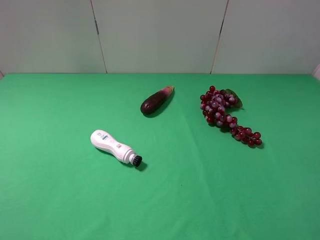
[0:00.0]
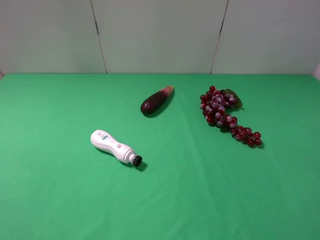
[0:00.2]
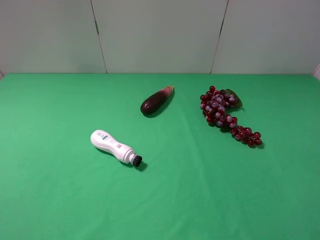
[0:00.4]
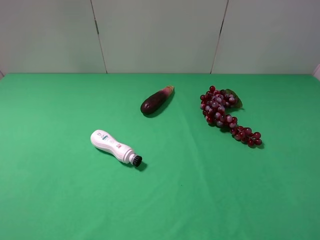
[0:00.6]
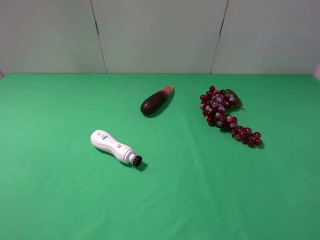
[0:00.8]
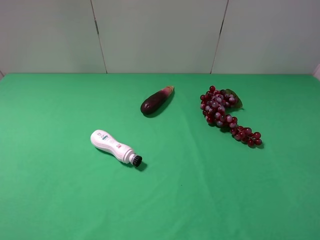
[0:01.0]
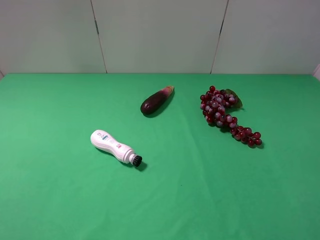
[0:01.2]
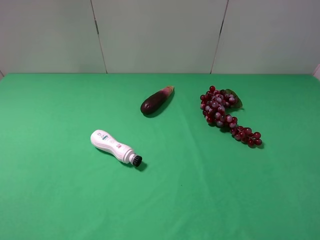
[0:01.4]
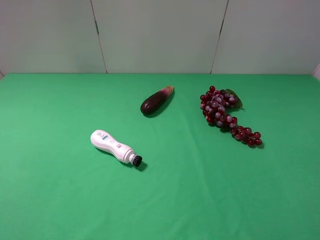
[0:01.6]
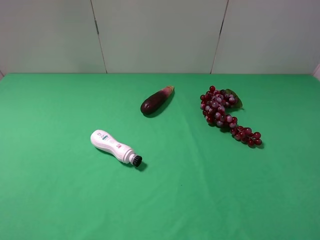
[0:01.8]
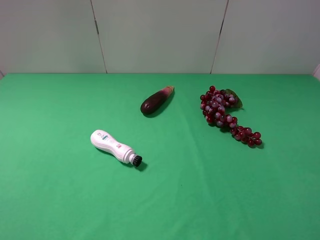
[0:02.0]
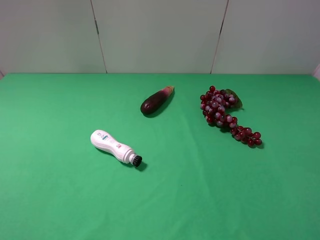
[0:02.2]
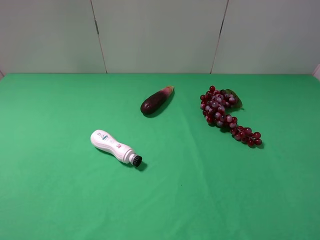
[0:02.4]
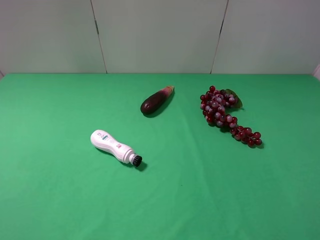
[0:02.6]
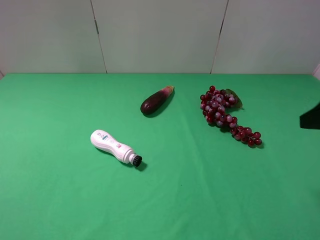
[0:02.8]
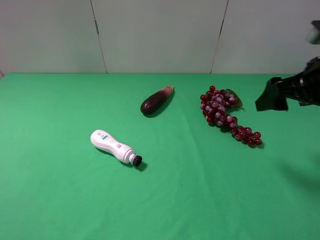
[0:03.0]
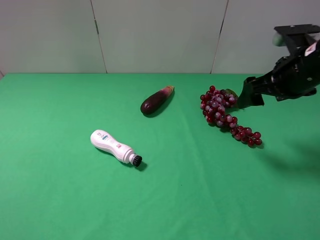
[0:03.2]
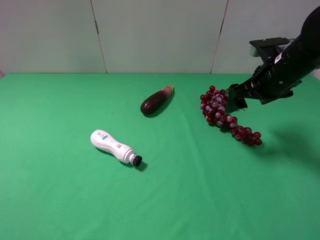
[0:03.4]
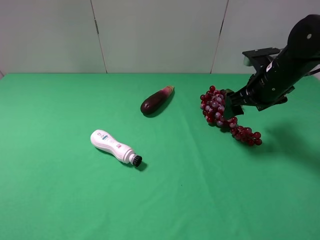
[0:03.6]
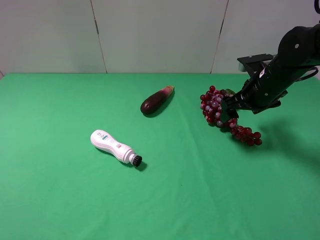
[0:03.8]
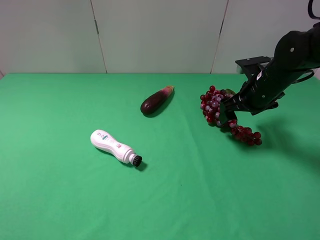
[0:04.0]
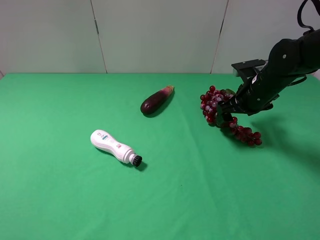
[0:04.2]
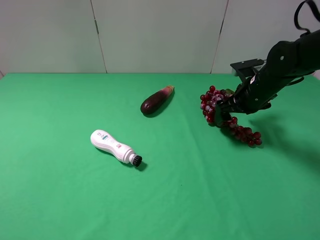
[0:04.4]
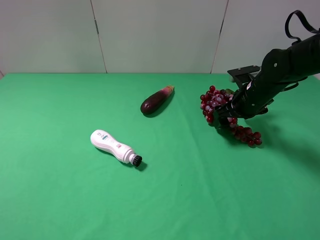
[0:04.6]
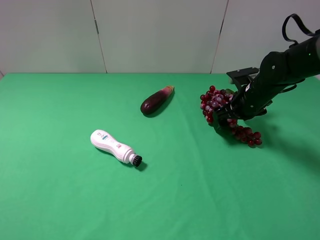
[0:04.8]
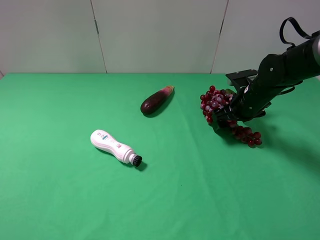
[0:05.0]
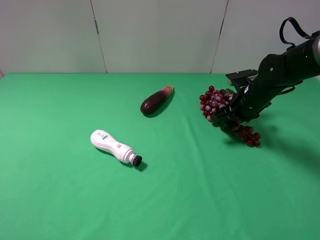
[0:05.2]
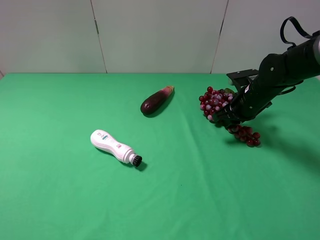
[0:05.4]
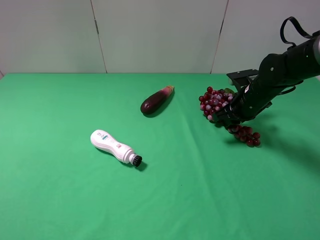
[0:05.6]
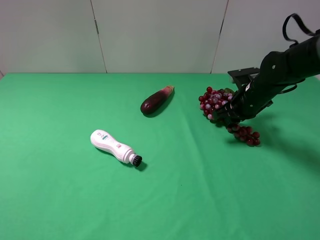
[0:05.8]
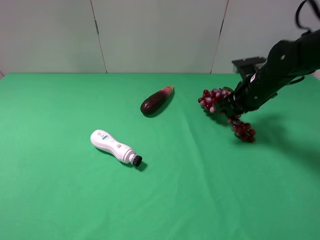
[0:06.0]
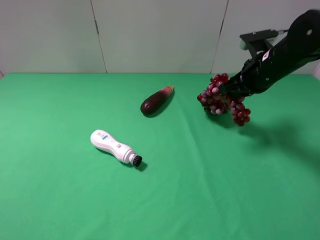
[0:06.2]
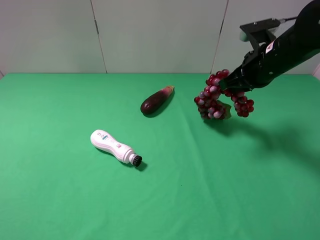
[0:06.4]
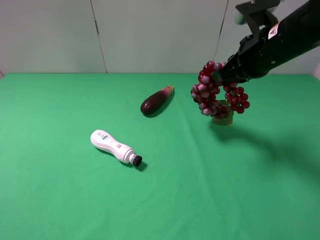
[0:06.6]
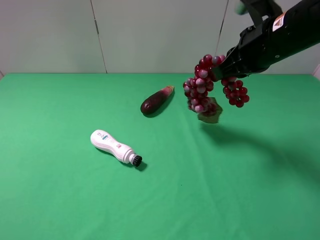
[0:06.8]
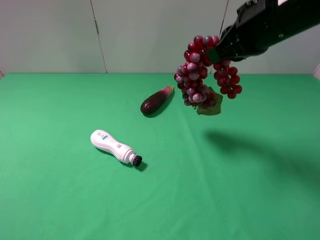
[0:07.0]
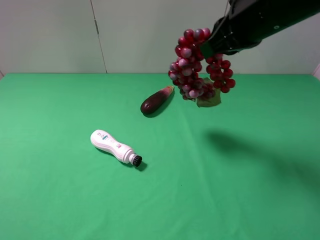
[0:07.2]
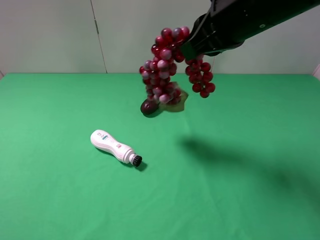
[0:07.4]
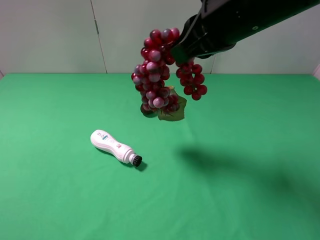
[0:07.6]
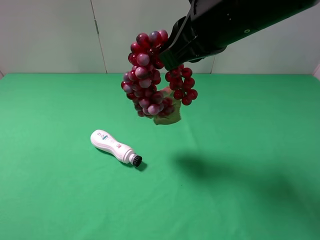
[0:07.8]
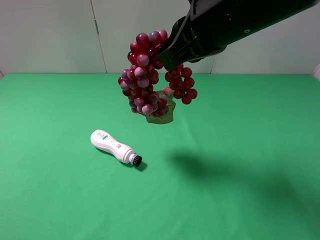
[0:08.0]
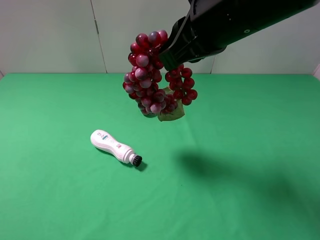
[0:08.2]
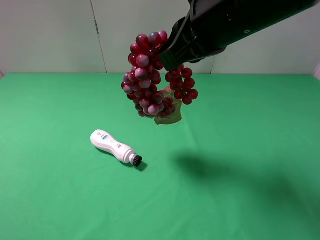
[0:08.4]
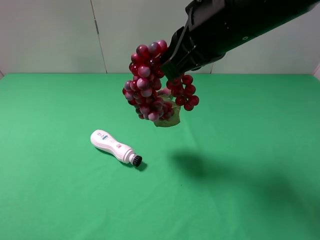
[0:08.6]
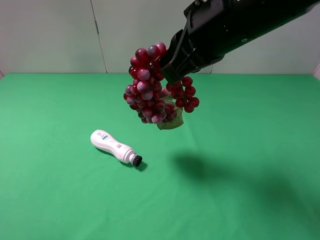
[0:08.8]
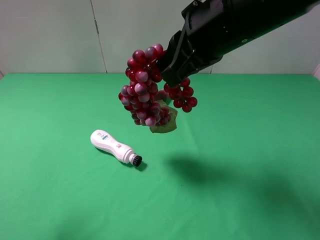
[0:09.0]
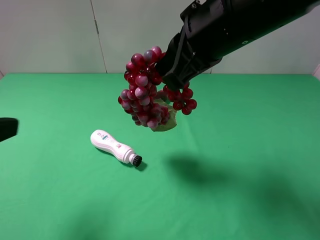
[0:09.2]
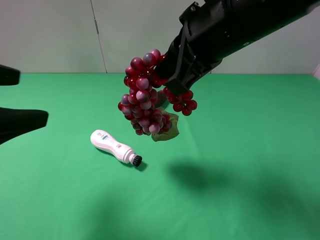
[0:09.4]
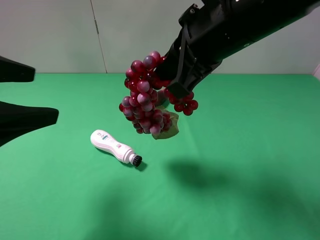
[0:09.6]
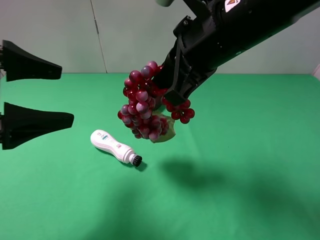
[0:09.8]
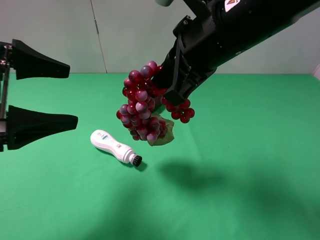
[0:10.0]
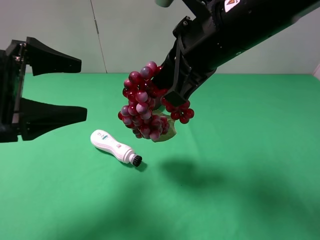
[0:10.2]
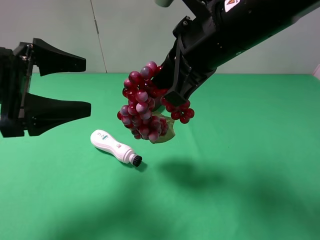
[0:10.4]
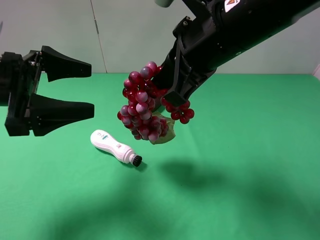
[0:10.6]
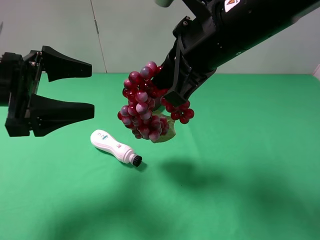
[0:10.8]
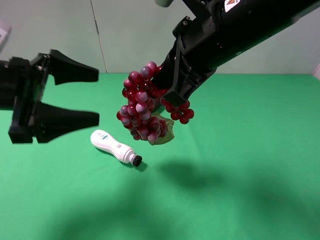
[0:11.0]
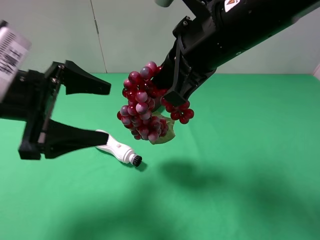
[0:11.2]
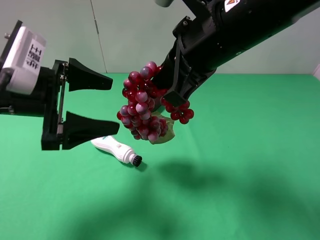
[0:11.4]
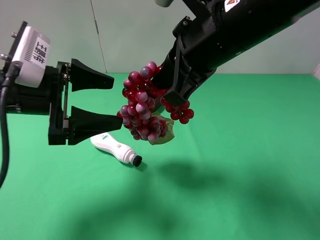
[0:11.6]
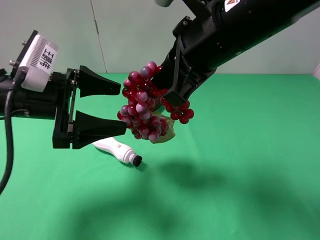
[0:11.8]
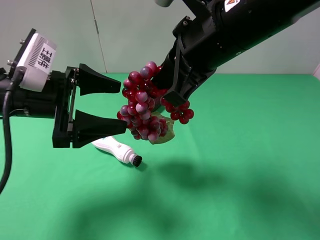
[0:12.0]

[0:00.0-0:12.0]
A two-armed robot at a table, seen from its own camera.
Task of the whole recording: use the right gripper to pick up the item and transfer it from the right gripper to the left gripper.
Step, 0:00.0 to 0:05.4: Use the right gripper to grab the grape on the right side of the table.
0:00.0 to 0:01.6: Both grippers stay about where they are.
0:01.6 to 0:03.0: The right gripper travels forward by some 25 cm.
0:03.0 to 0:04.4: The right gripper travels downward and forward by approximately 15 cm.
0:04.4 to 0:06.0: The right gripper closes its fingers.
0:06.0 to 0:07.6: The right gripper heads upward, to the left and backward, covering some 25 cm.
0:07.6 to 0:09.0: The left gripper is displaced forward by approximately 5 cm.
0:09.0 to 0:10.4: The left gripper heads forward and downward, covering some 15 cm.
0:10.4 to 0:12.0: The left gripper moves about 5 cm.

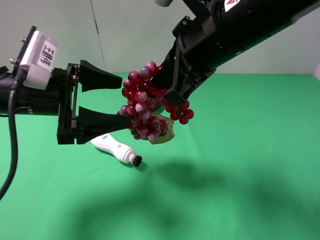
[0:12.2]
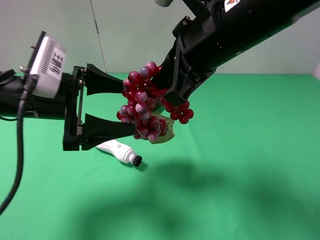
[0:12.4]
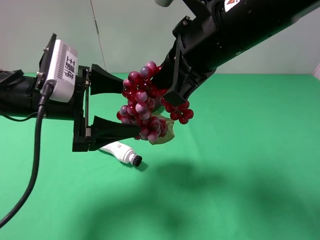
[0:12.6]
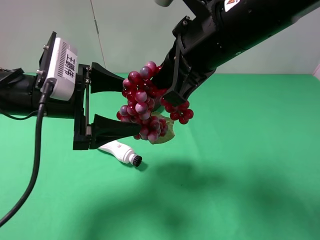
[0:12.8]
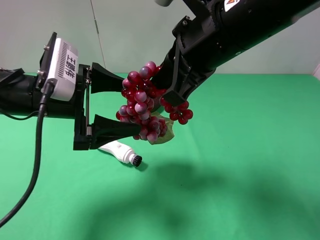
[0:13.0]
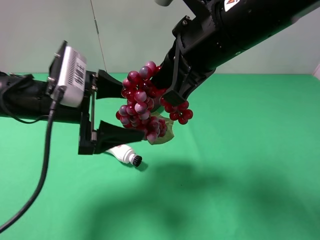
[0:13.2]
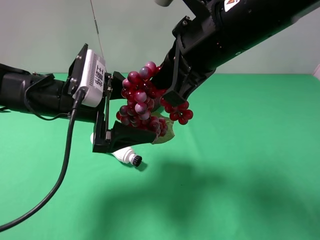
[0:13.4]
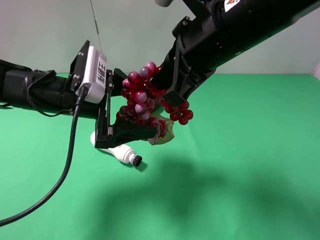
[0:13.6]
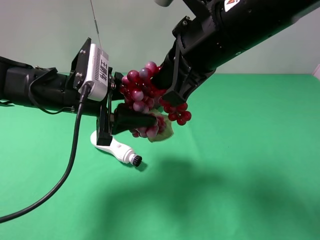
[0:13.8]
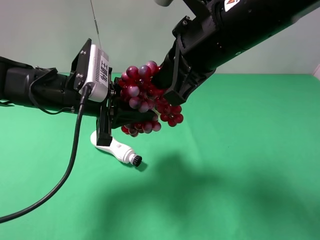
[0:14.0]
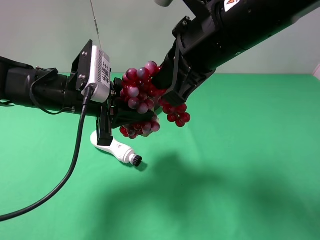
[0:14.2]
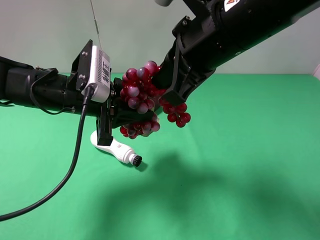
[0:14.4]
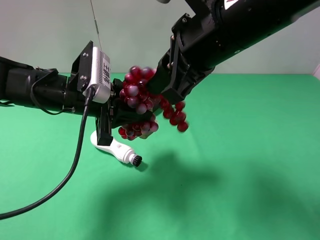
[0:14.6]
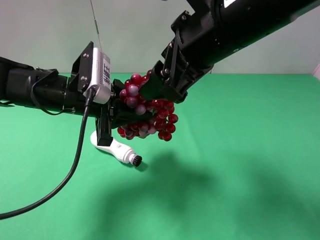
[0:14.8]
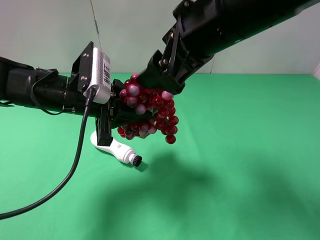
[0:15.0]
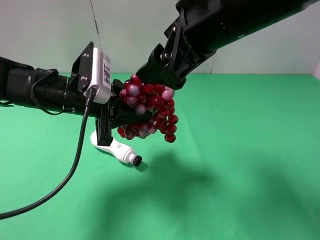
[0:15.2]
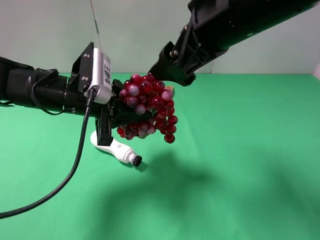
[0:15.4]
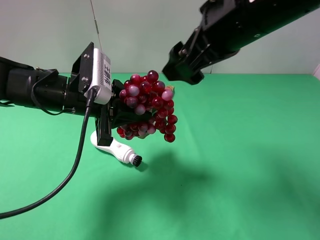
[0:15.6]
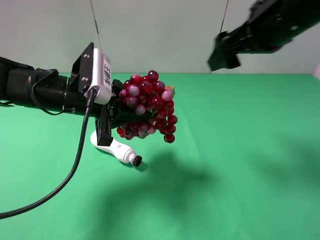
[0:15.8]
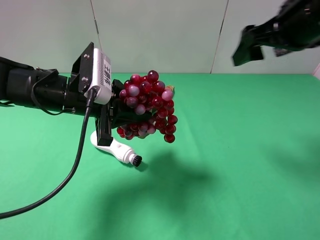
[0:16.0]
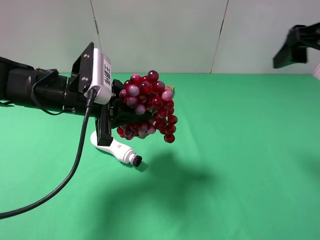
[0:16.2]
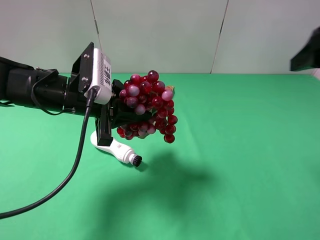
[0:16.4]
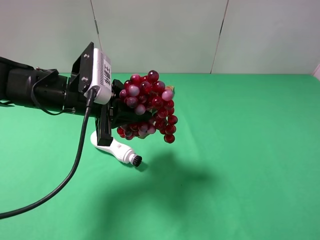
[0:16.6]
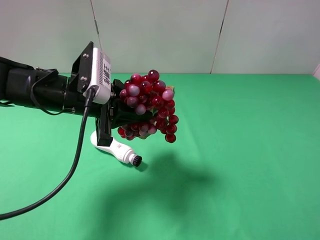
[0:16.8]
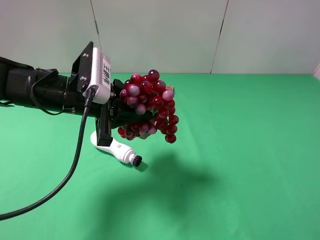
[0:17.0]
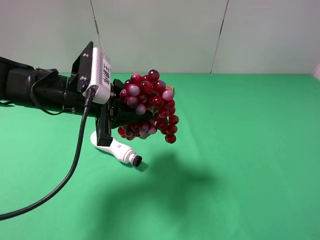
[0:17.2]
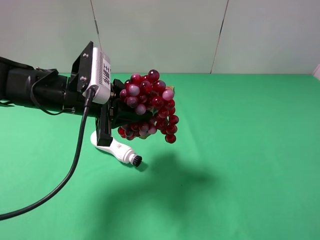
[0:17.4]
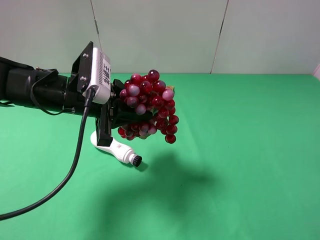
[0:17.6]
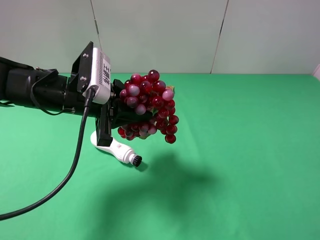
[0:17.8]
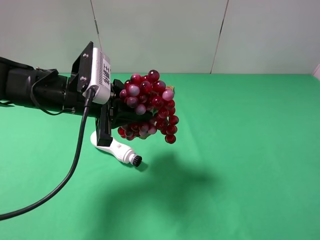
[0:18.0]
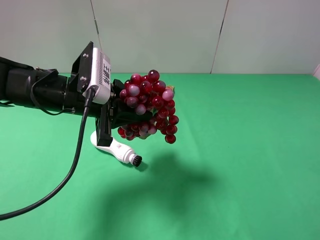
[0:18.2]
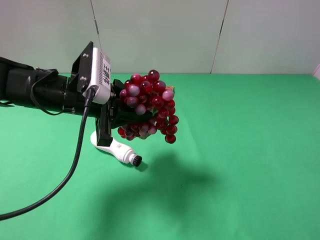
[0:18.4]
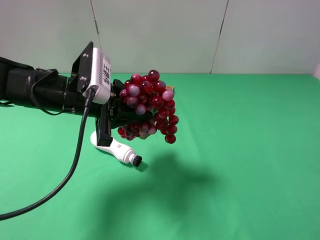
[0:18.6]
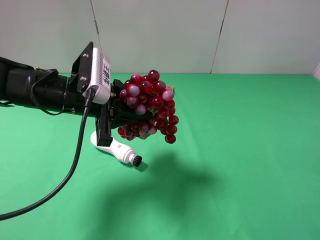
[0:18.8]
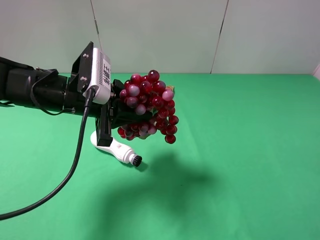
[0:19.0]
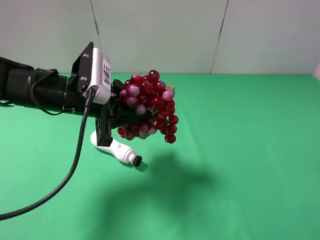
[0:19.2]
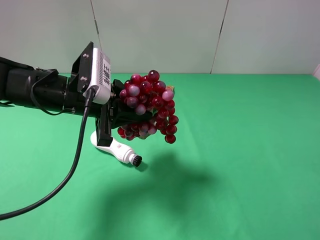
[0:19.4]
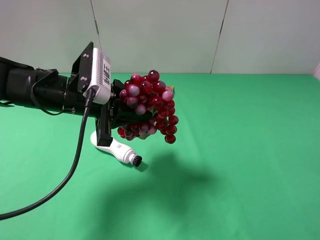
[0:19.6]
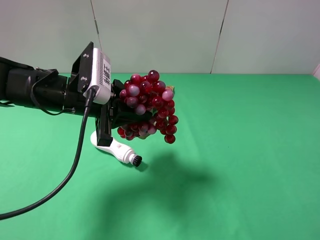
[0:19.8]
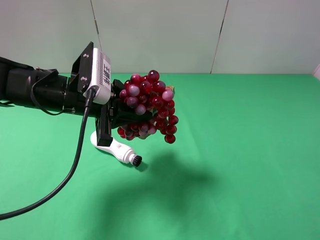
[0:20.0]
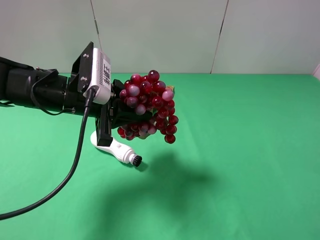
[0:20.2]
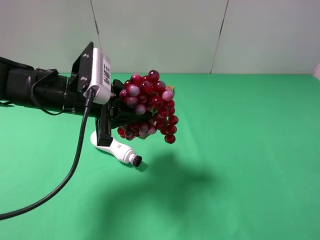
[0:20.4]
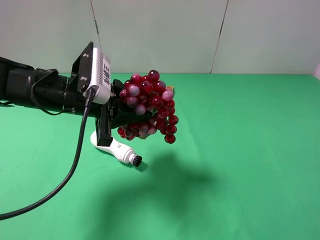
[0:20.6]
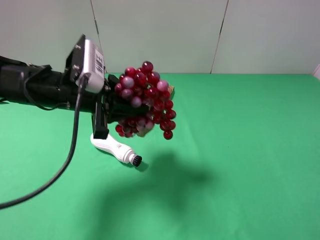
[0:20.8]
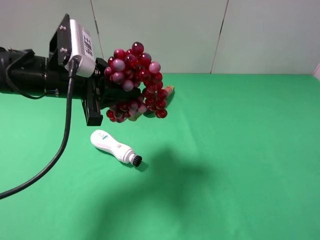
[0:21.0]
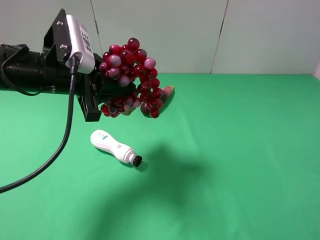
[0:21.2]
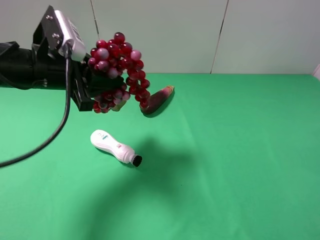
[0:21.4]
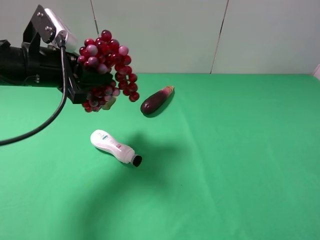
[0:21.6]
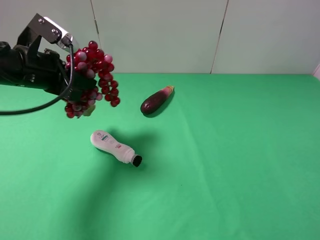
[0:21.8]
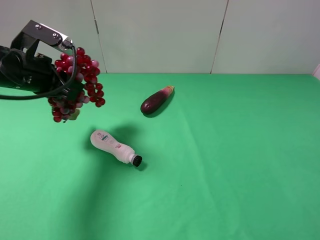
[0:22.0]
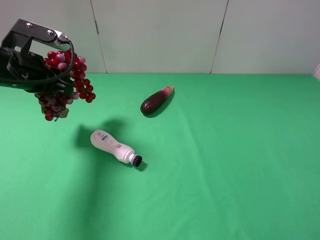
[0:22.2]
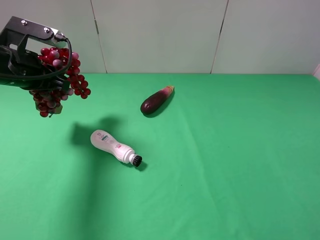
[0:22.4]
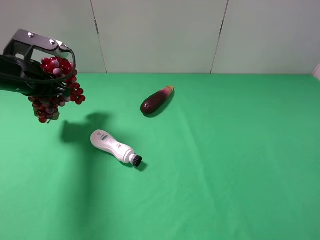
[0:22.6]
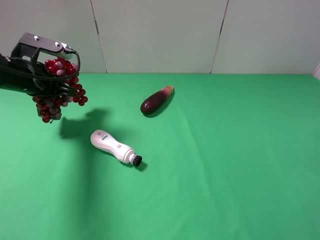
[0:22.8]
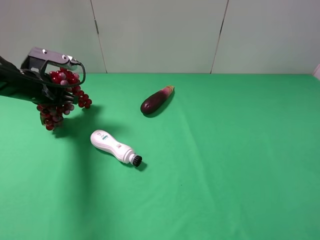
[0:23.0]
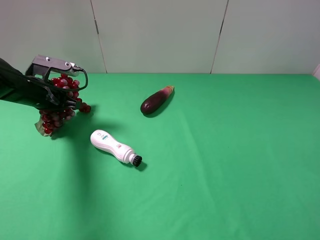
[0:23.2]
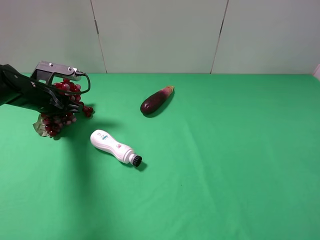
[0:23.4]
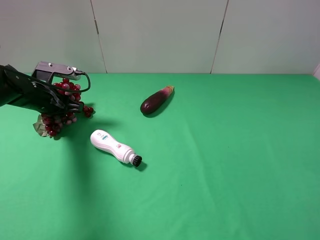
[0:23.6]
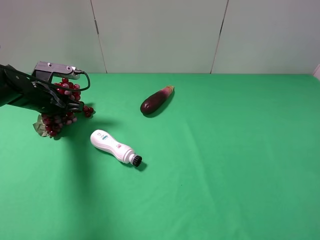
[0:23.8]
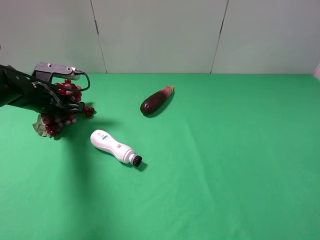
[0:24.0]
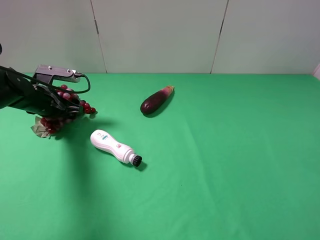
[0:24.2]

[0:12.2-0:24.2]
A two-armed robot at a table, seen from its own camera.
Task of the whole recording: use the right gripper to pick up the item and transfer it from the right gripper to the left gripper.
Step, 0:12.2 to 0:15.0: Pass the grape to the left gripper.
Step, 0:15.2 to 0:24.2: The left gripper places grape on the left side of the table.
0:12.2 to 0:13.8: The left gripper moves roughly 5 cm, and closes.
0:13.8 to 0:15.2: The right gripper opens up.
0:15.2 to 0:16.6: The right gripper shifts roughly 25 cm to the right and backward.
0:19.8 to 0:21.2: The grippers move only a little.
0:21.2 to 0:22.6: The left gripper moves to the left and forward, approximately 10 cm.
0:22.6 to 0:24.2: The left gripper shifts roughly 10 cm downward, and opens.
